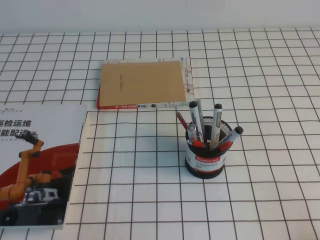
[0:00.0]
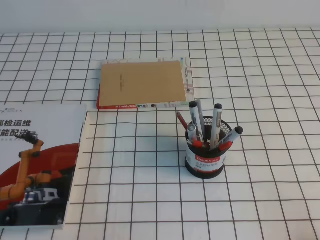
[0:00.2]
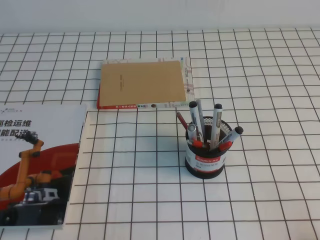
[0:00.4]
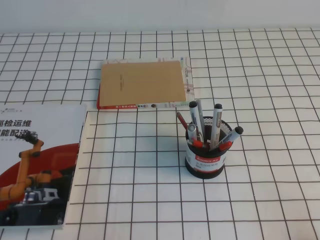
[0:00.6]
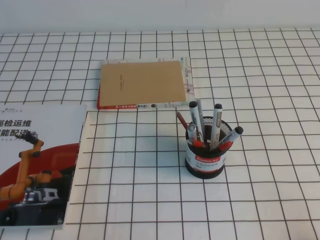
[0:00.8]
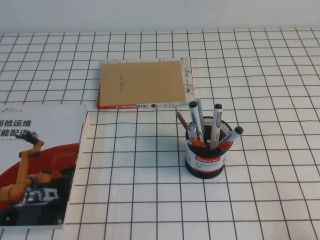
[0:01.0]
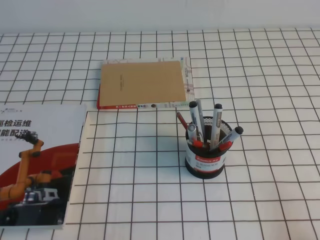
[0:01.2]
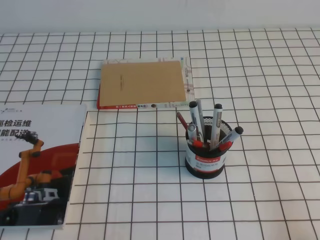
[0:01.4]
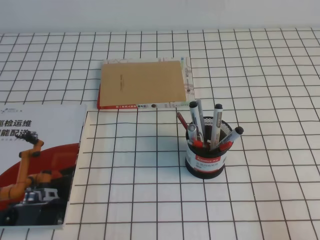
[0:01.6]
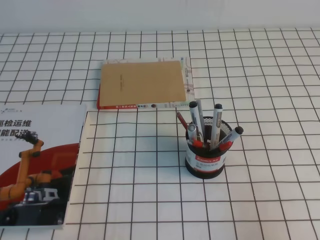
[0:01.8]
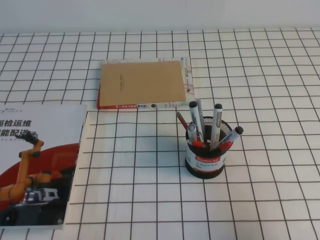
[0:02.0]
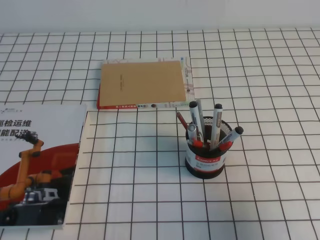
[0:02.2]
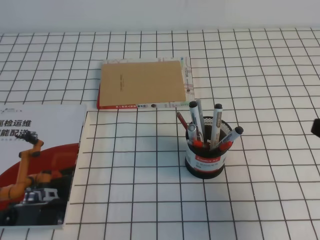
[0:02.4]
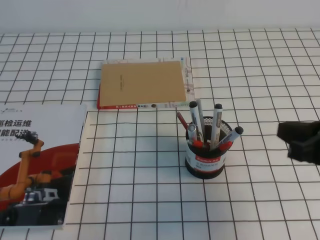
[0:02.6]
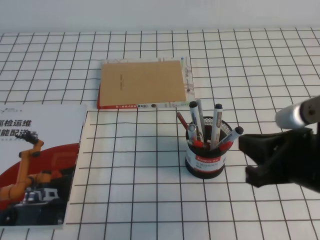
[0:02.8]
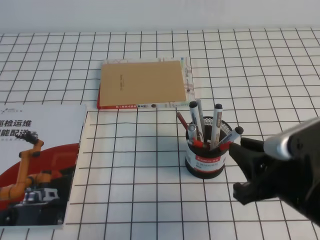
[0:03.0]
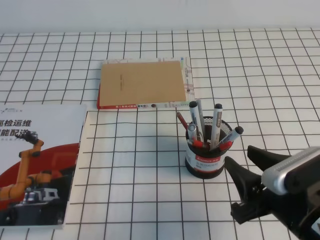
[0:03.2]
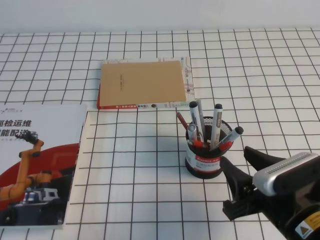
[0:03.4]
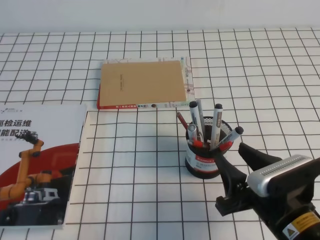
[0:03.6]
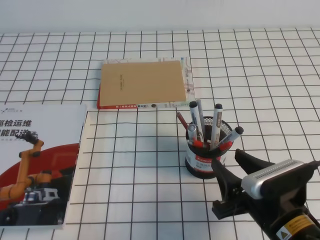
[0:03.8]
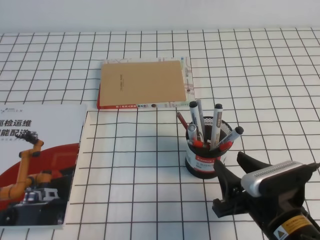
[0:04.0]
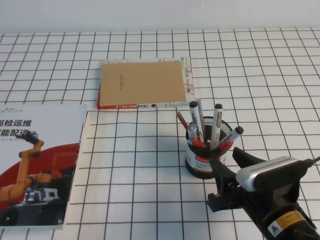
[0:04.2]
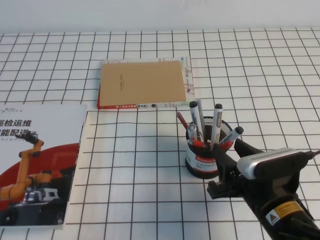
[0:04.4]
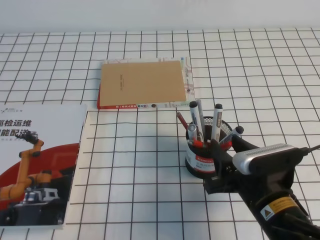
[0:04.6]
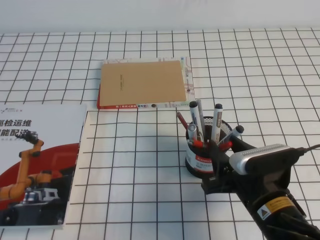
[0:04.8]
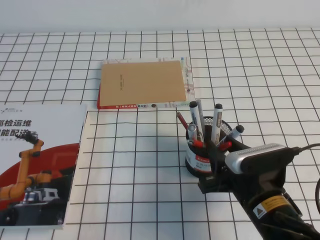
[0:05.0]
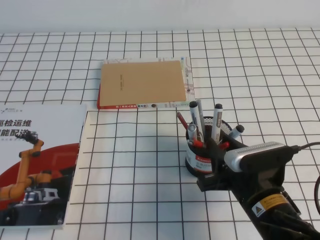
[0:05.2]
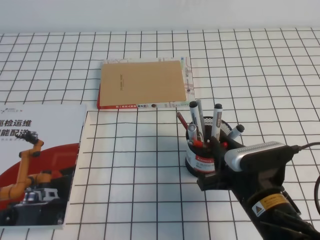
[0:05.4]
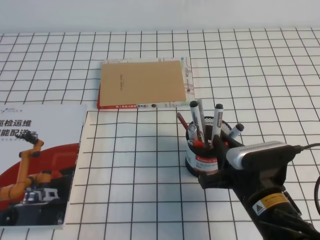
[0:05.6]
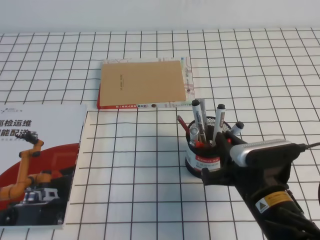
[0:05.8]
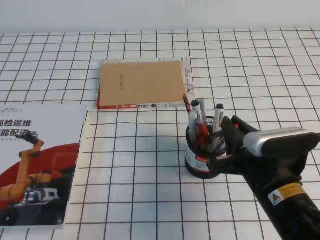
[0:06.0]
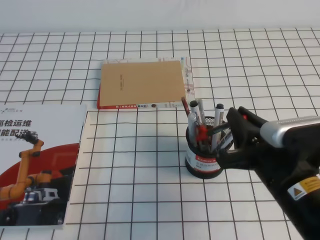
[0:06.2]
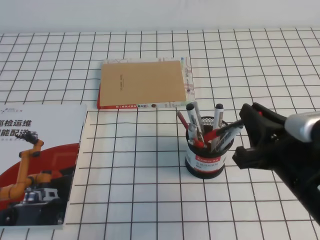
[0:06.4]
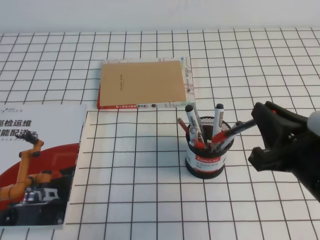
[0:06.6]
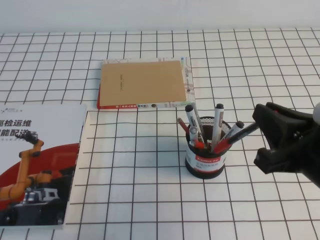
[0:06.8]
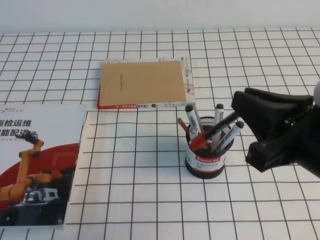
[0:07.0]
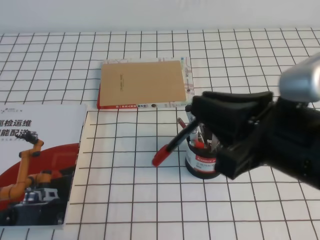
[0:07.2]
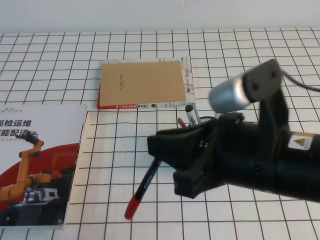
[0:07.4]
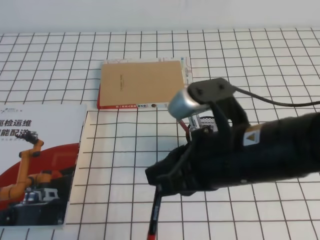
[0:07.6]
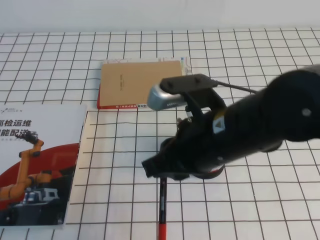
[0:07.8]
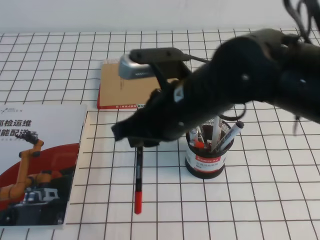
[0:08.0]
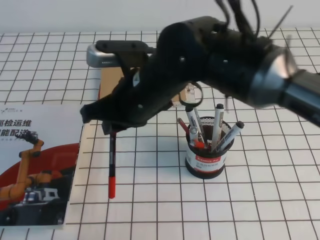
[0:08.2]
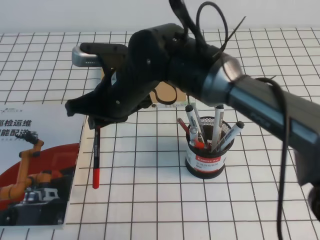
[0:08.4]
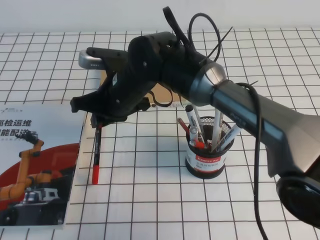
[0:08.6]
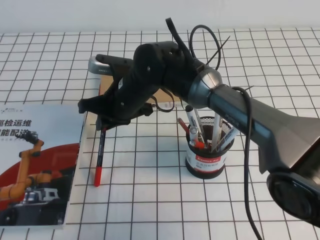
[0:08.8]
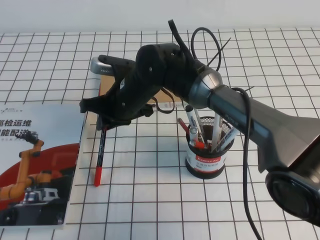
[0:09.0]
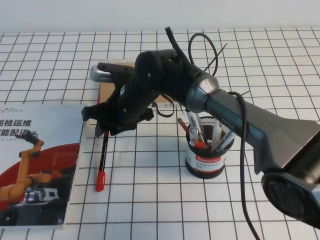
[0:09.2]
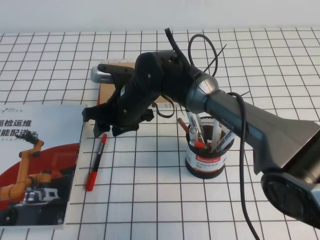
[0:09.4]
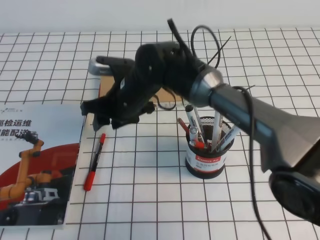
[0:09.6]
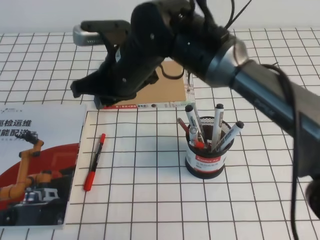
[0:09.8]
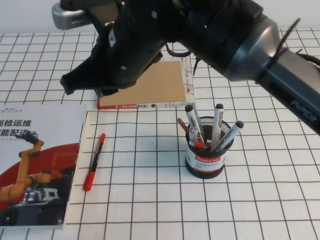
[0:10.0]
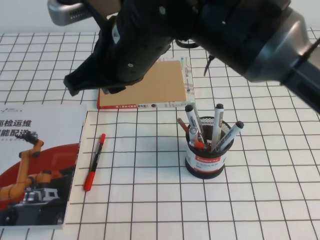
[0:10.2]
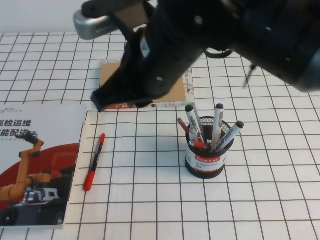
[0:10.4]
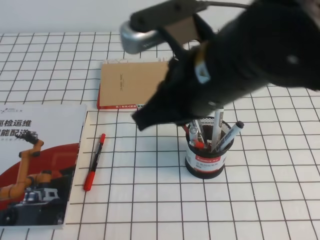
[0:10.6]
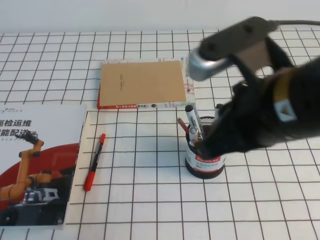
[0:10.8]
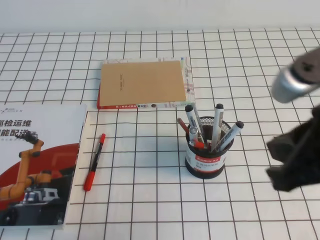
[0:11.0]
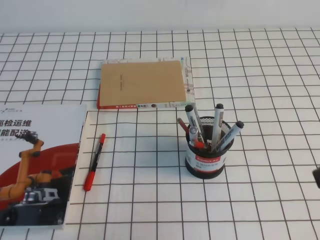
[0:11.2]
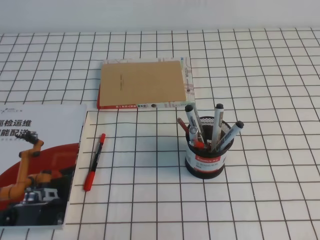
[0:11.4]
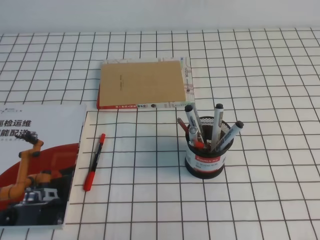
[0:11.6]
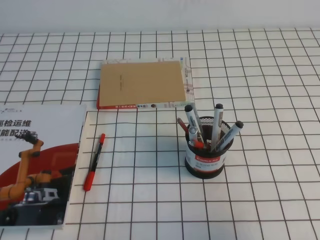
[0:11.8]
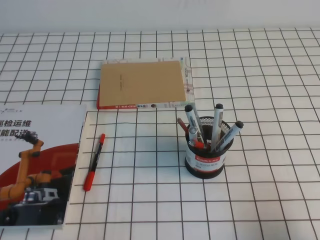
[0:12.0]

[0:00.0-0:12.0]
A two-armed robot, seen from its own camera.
0:01.6 to 0:03.0: The right gripper moves to the left and forward, about 15 cm, and opens its fingers.
0:03.0 to 0:04.4: The right gripper heads downward, covering about 10 cm, and opens.
0:04.4 to 0:06.0: The right gripper closes up.
0:06.0 to 0:07.6: The right gripper heads upward, covering approximately 15 cm.
0:07.6 to 0:09.0: The right gripper is displaced forward, to the left and downward by approximately 30 cm.
0:09.0 to 0:10.4: The right gripper heads upward, backward and to the right, covering some 25 cm, and opens and closes again.
0:10.4 to 0:12.0: The right gripper travels to the right, downward and backward by approximately 35 cm.

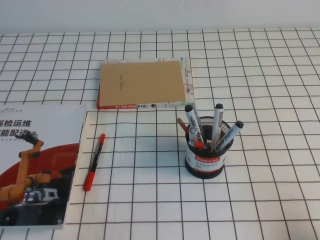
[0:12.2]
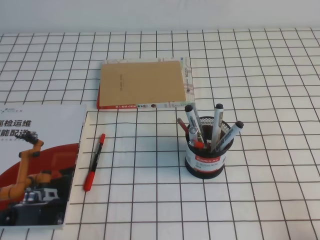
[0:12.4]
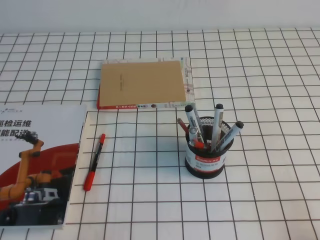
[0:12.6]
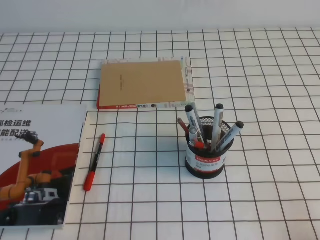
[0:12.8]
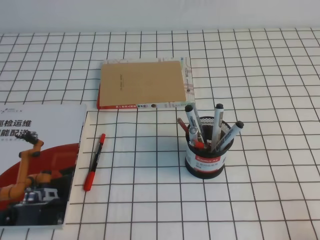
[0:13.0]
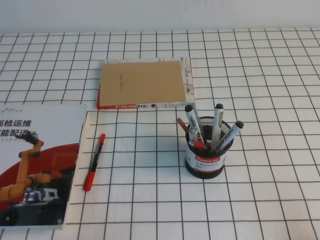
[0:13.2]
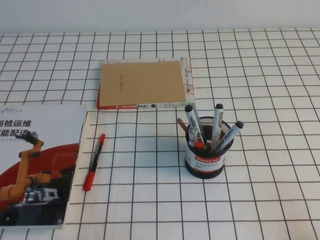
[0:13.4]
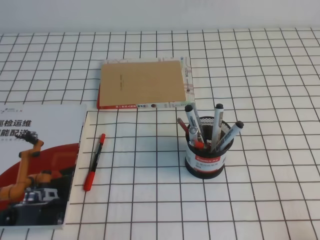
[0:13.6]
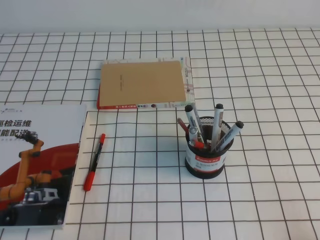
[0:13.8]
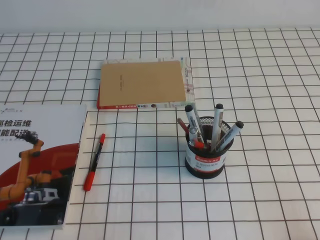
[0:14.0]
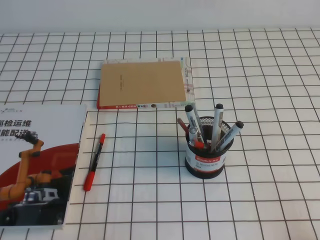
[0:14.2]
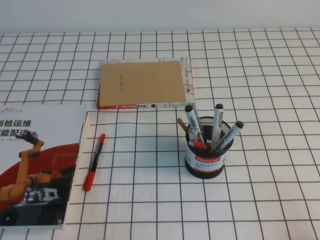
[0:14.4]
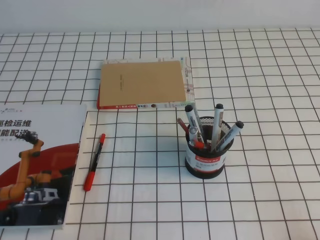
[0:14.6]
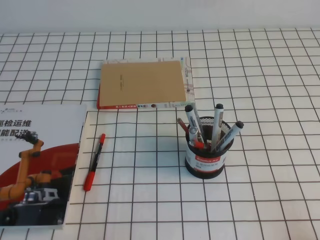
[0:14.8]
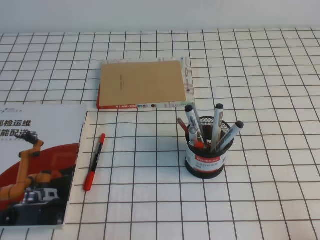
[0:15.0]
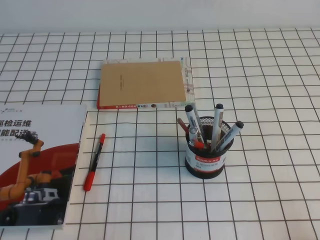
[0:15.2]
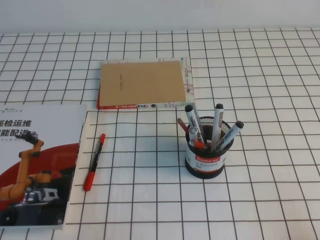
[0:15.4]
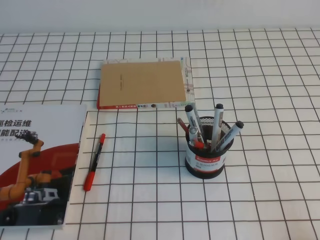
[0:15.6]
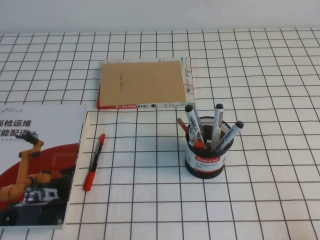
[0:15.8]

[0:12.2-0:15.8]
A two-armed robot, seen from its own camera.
0:14.0 to 0:15.8: The two grippers keep their place.
